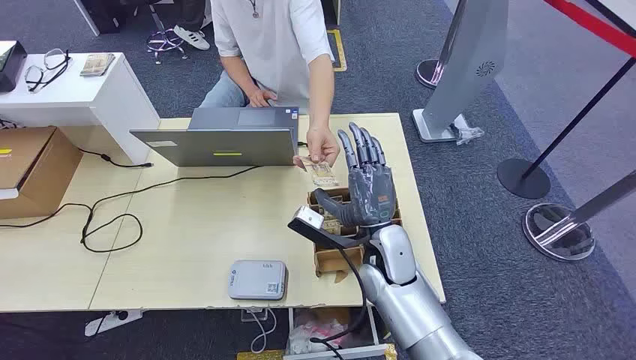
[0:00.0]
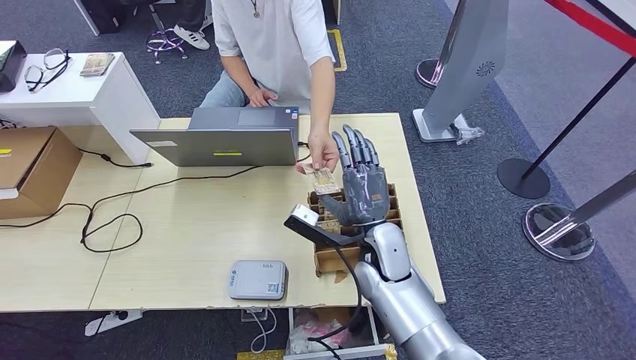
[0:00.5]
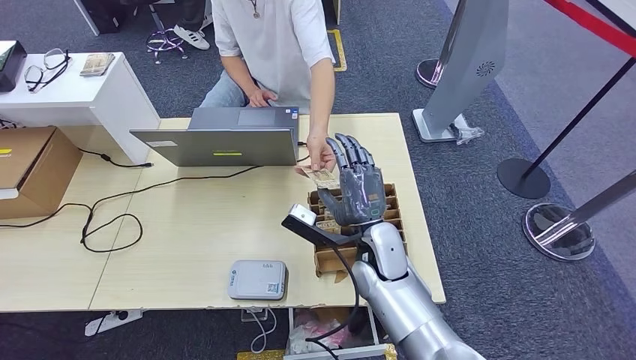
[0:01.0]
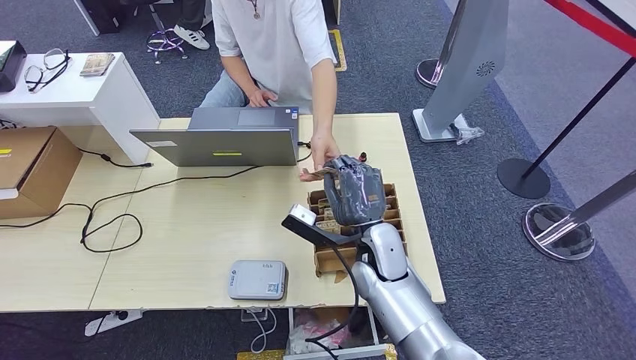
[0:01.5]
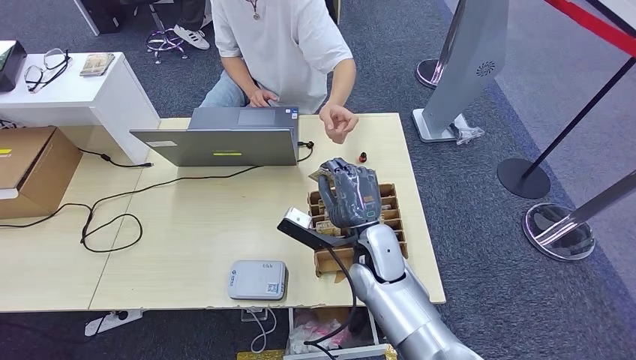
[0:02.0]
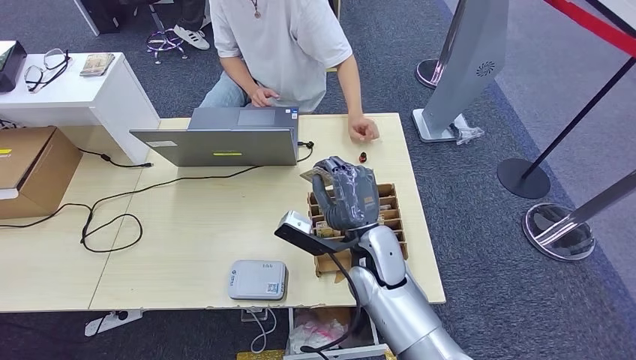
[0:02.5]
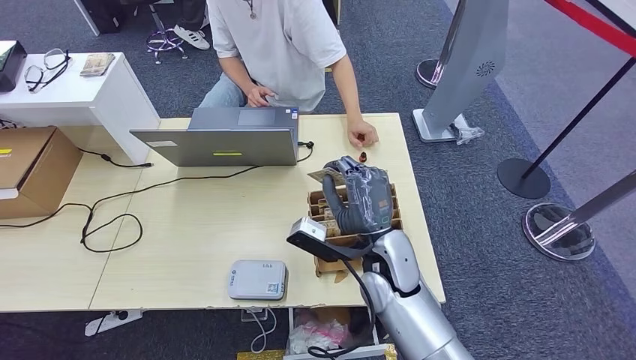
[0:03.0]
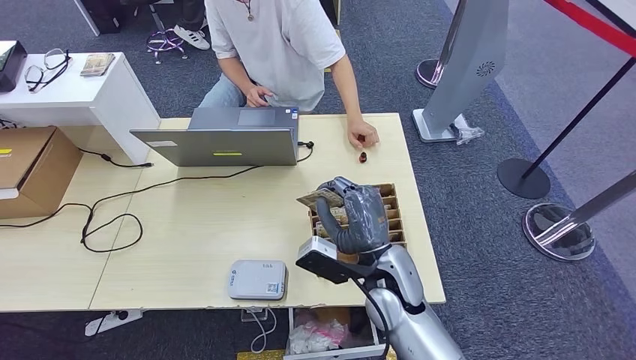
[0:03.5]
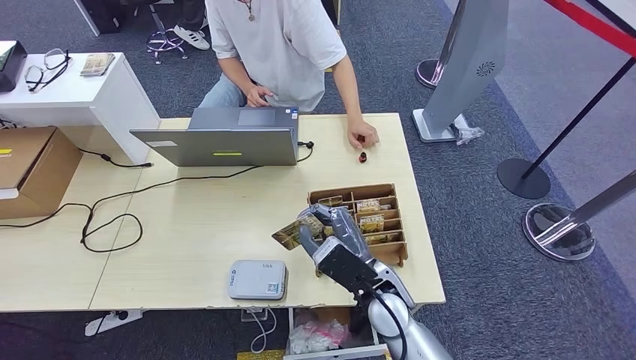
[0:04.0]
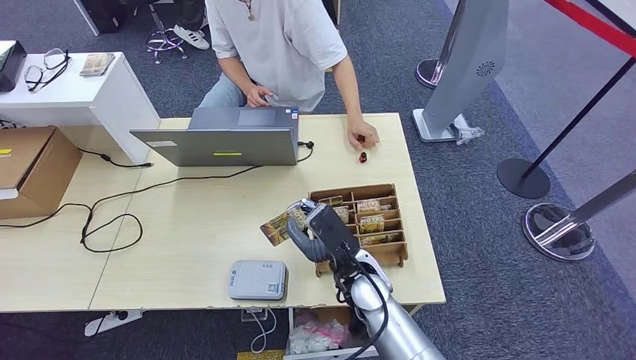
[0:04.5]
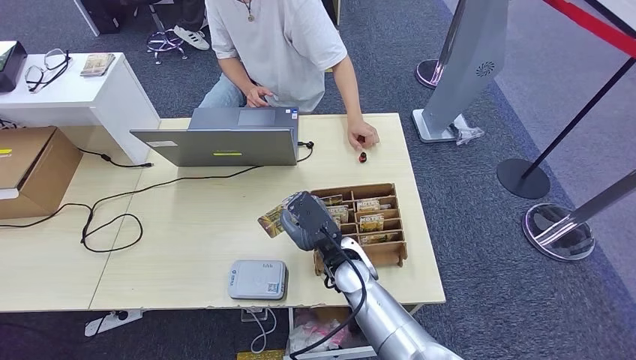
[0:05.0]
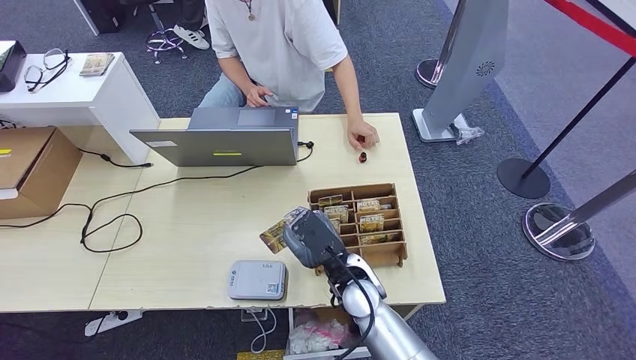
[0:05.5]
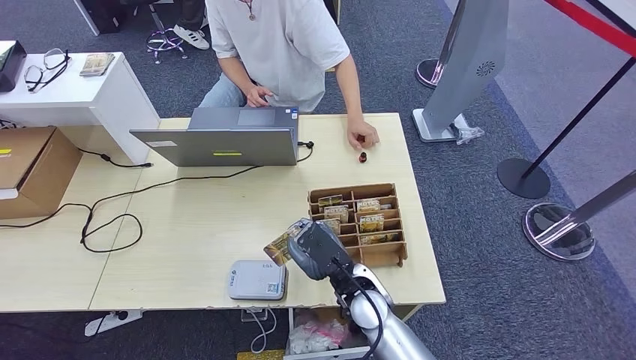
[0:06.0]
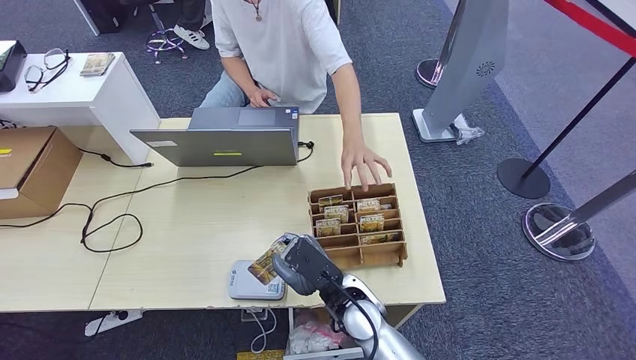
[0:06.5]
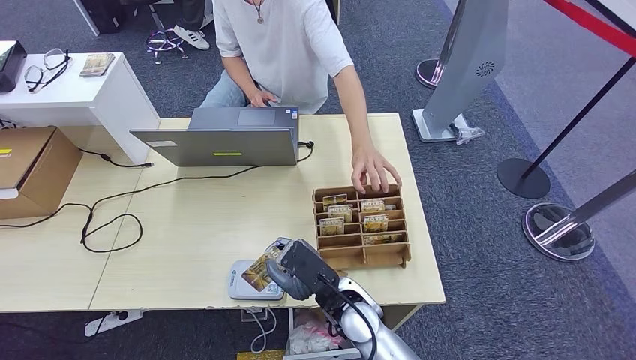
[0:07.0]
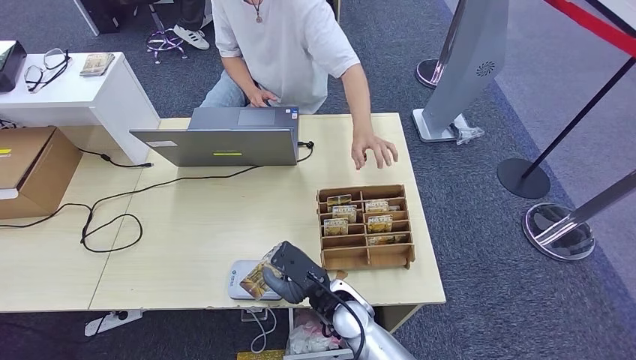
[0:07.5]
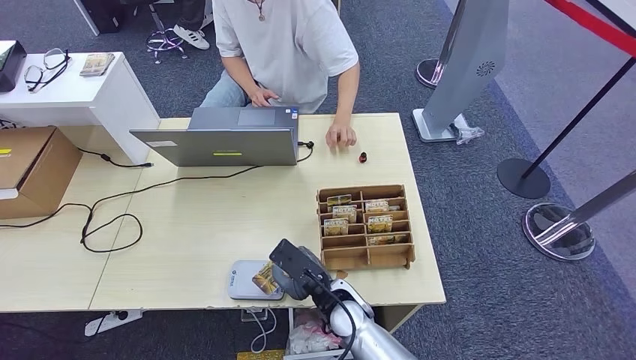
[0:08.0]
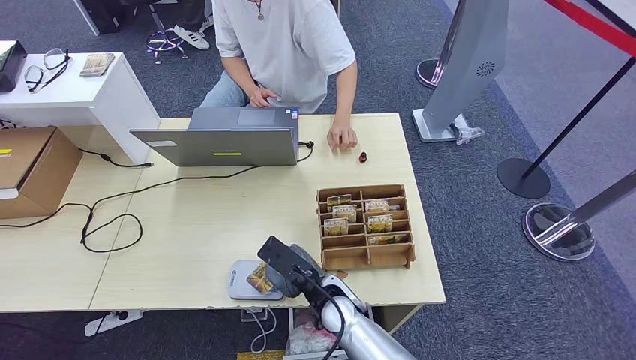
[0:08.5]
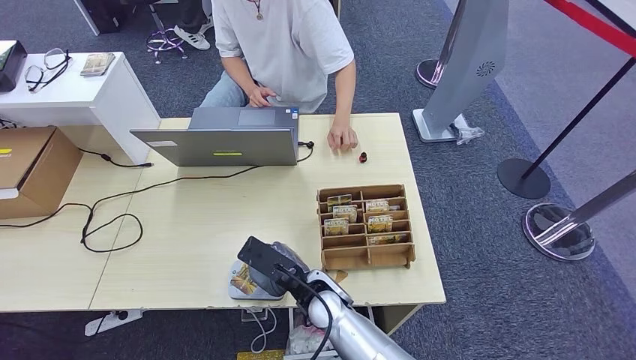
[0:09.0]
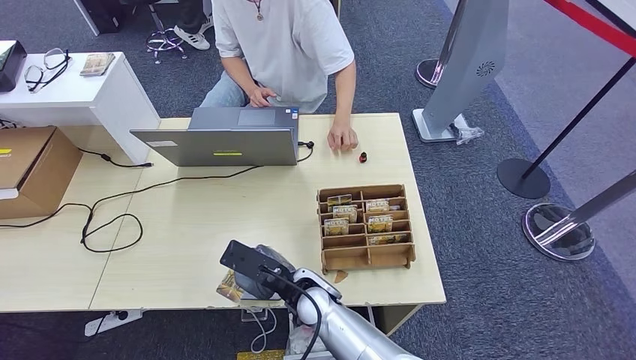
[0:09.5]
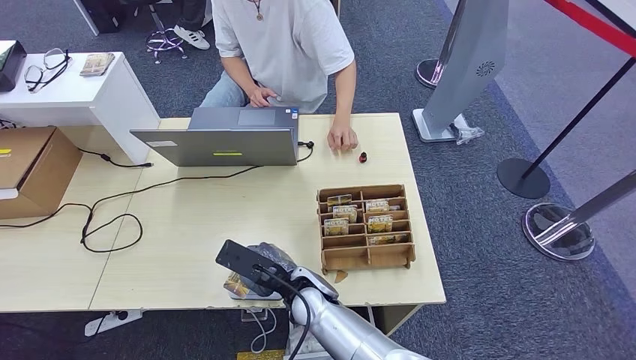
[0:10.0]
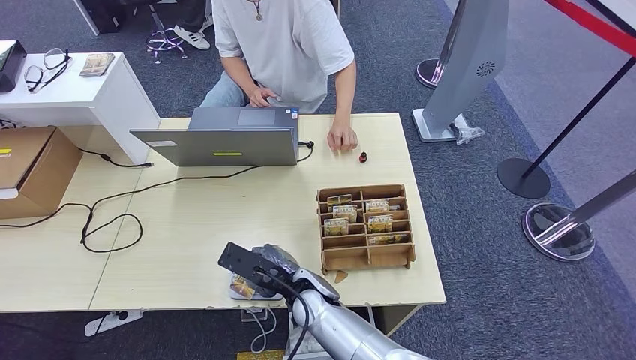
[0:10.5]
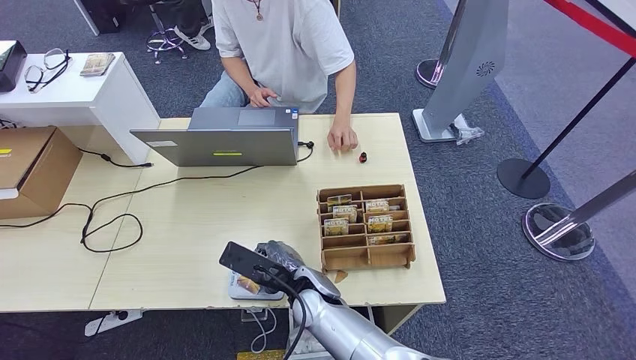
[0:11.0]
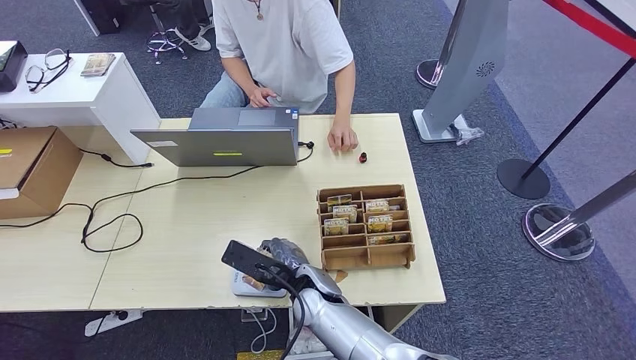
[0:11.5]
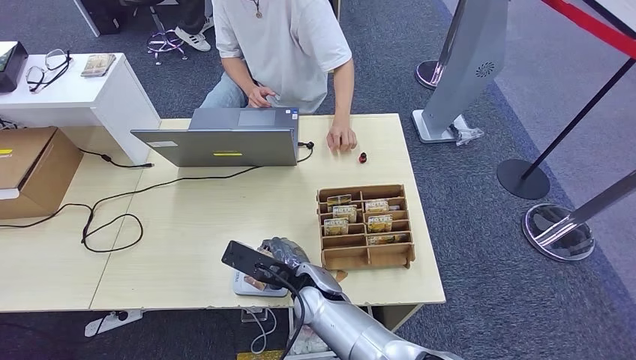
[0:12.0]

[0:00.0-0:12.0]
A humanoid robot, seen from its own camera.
Step, 0:00.0 to 0:01.5: Take the ID card from the person's hand.
Step, 0:02.5 to 0:10.0: Place the ID card on the card reader.
0:02.0 to 0:04.0: The right hand travels backward by some 5 cm.
0:06.0 to 0:08.0: The hands make only small movements.
0:08.0 to 0:10.0: The right hand heads to the left, covering roughly 5 cm.
0:10.0 to 0:12.0: The hands stay close to where they were, moving slightly.

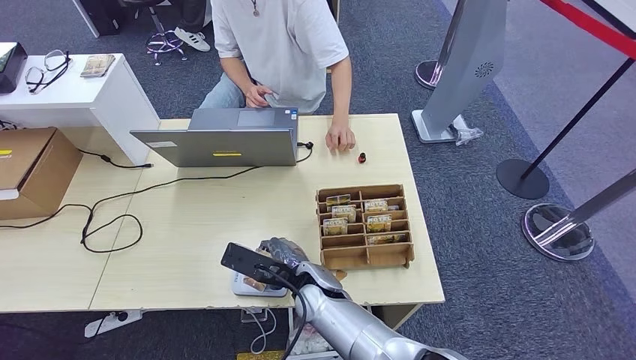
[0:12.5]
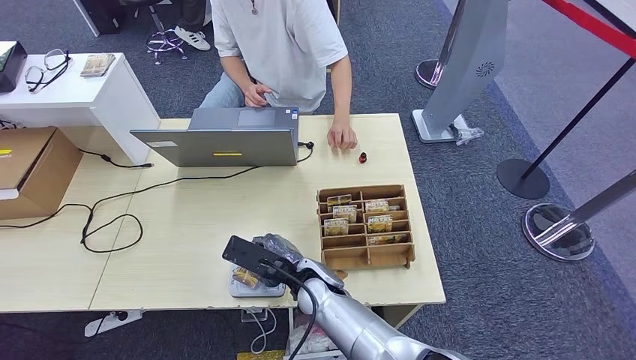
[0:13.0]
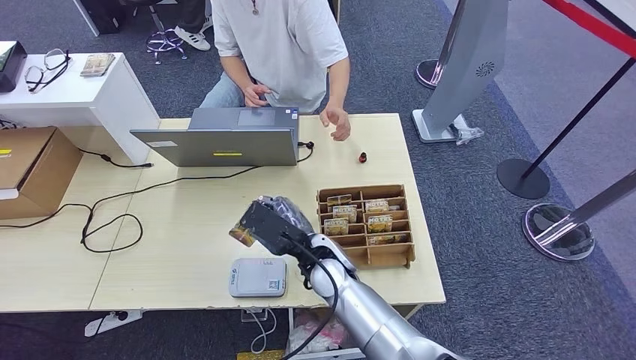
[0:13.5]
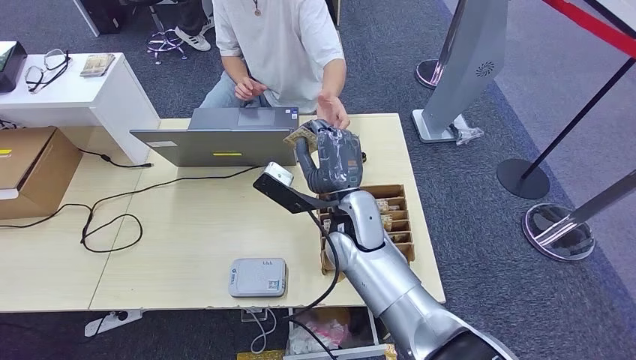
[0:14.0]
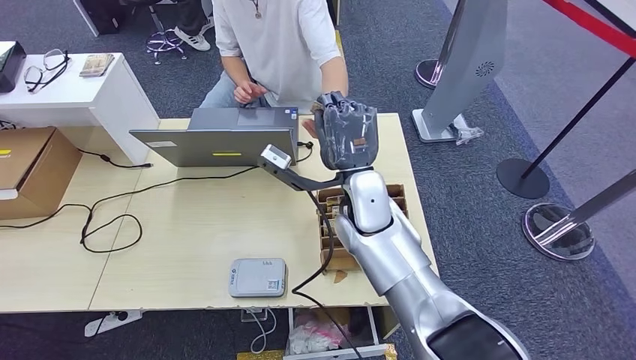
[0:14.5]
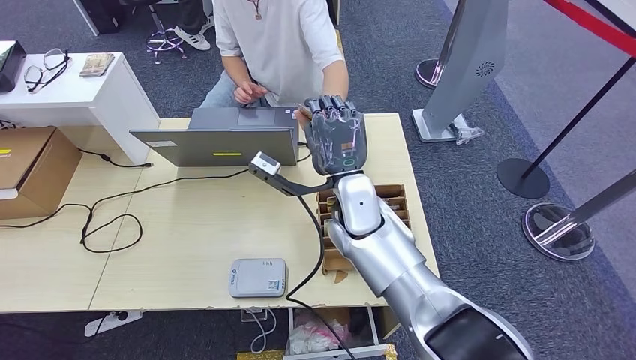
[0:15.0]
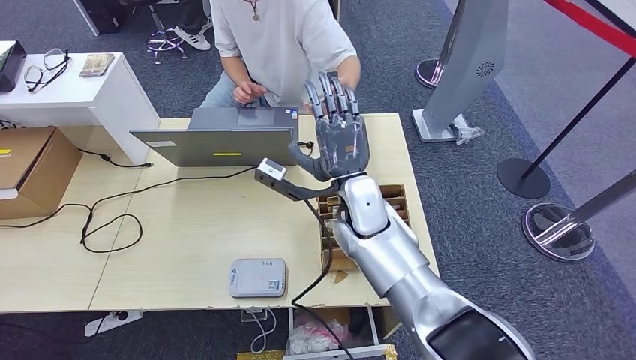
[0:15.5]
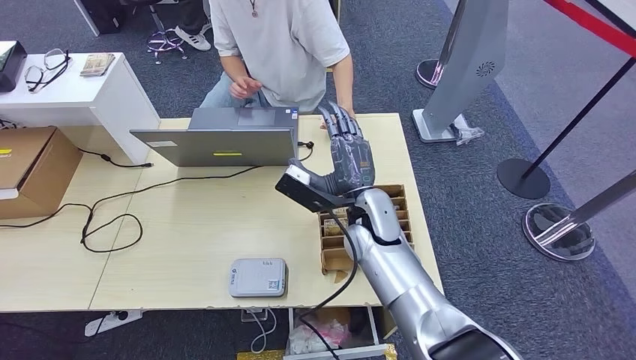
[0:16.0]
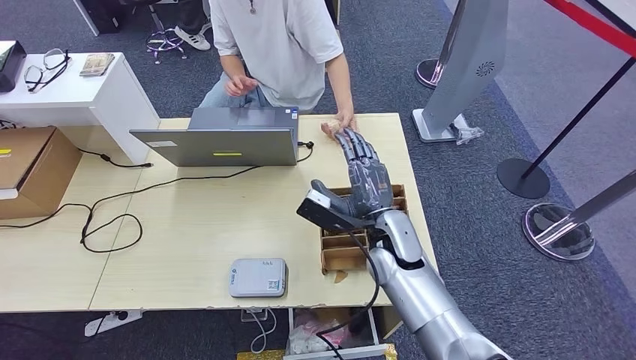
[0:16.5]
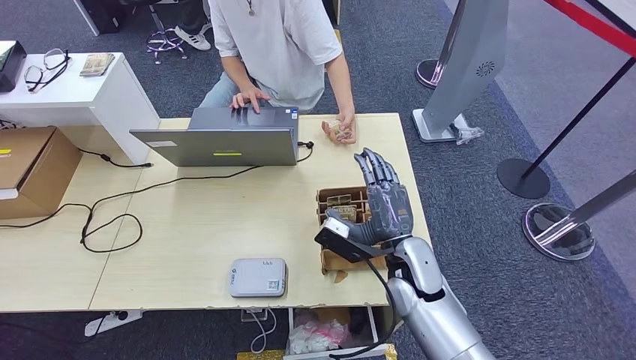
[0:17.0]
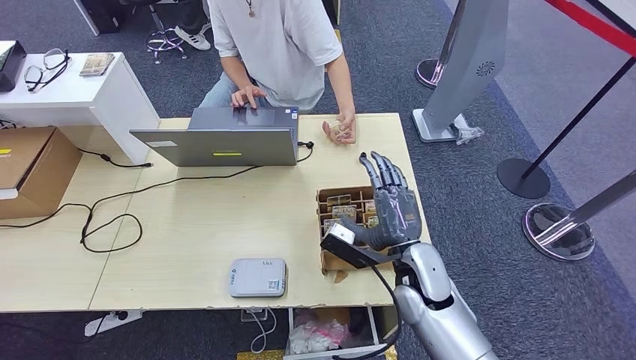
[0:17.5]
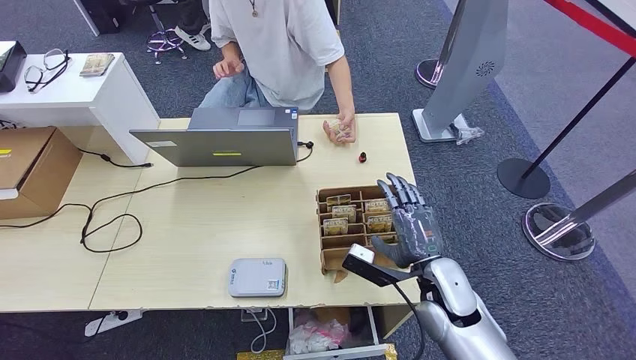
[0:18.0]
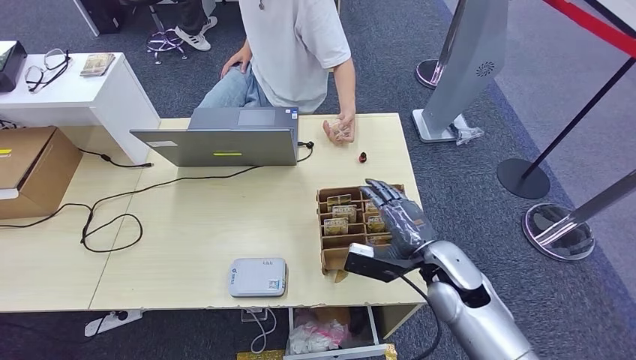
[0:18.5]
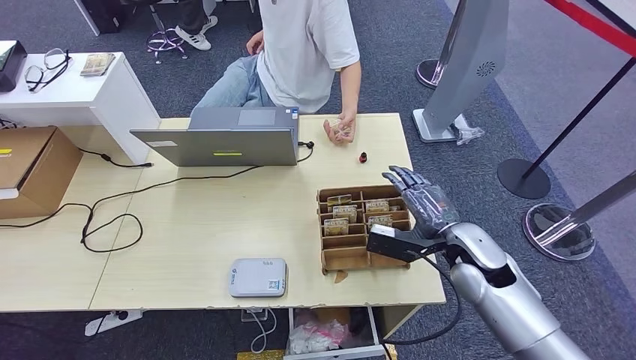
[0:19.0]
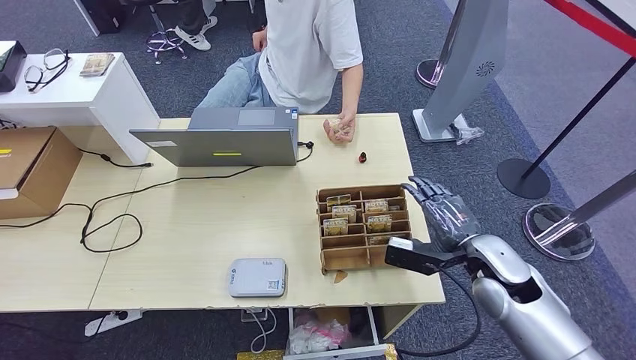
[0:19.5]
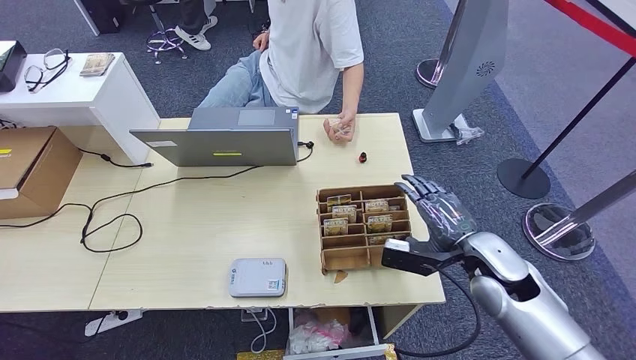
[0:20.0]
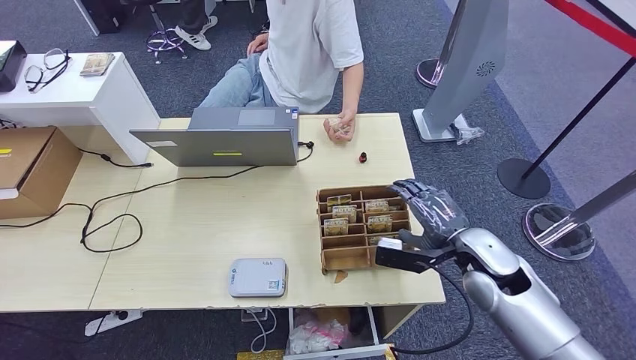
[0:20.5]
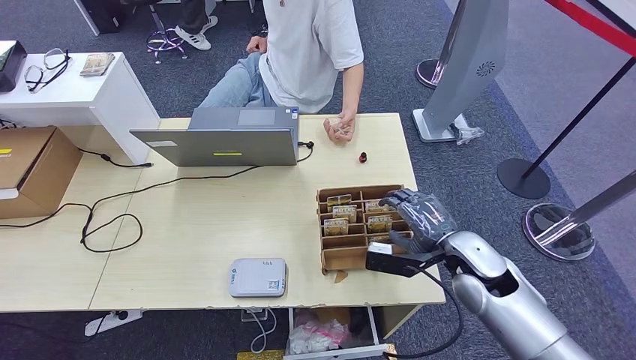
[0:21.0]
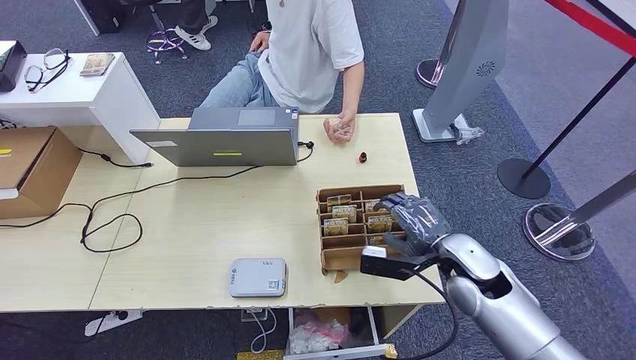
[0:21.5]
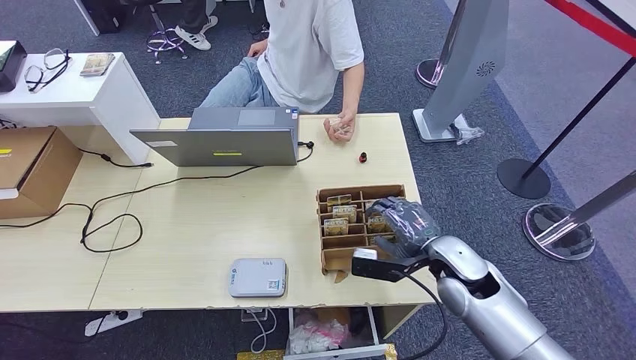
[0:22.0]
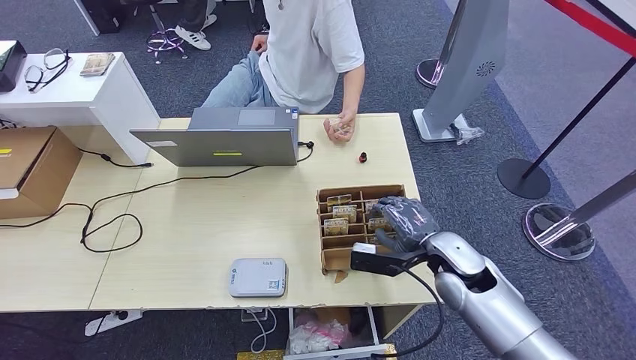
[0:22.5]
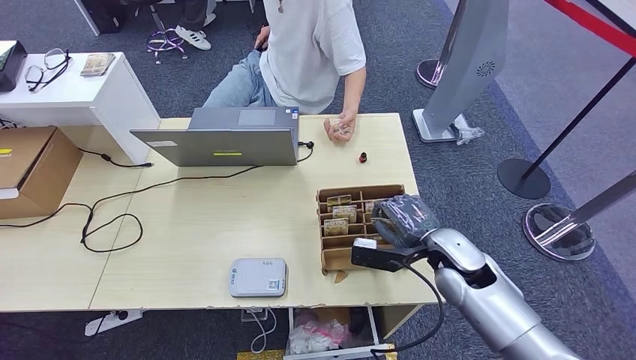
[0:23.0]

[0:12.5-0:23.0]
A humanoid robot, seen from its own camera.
Step, 0:12.5 to 0:15.0: Hand the ID card to the person.
0:12.5 to 0:14.5: The right hand goes approximately 20 cm upward, forward and to the right.
0:14.5 to 0:16.5: The right hand goes some 10 cm downward and to the right.
0:16.5 to 0:19.0: The right hand moves to the right, some 15 cm.
0:19.0 to 0:23.0: The hands make only small movements.
